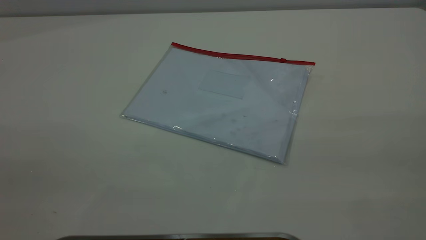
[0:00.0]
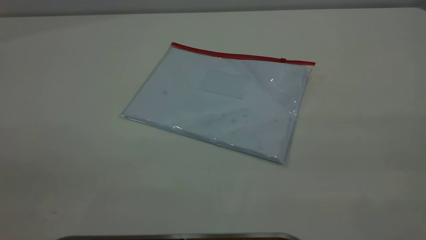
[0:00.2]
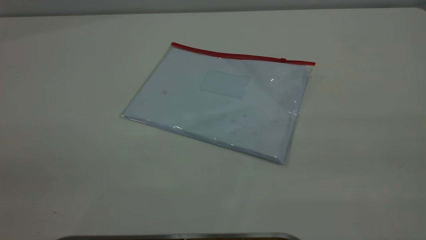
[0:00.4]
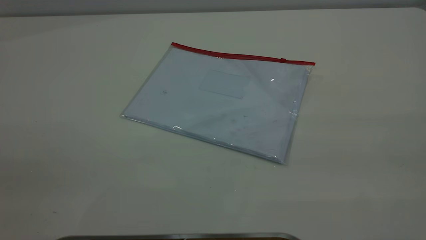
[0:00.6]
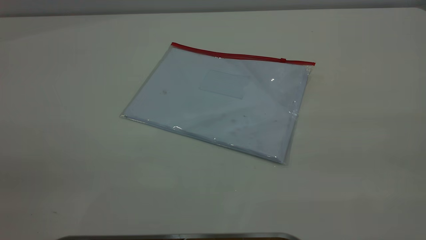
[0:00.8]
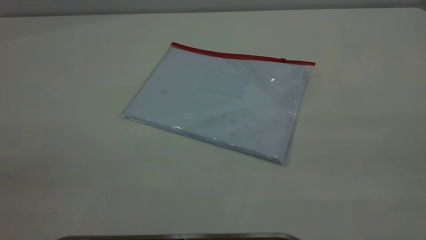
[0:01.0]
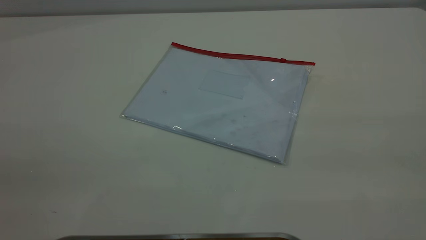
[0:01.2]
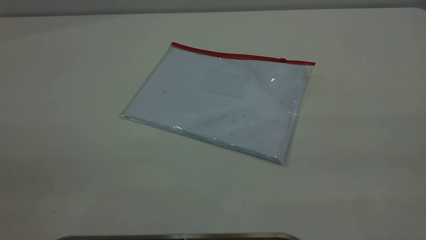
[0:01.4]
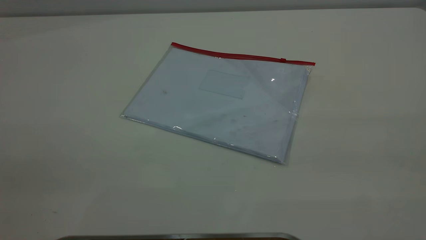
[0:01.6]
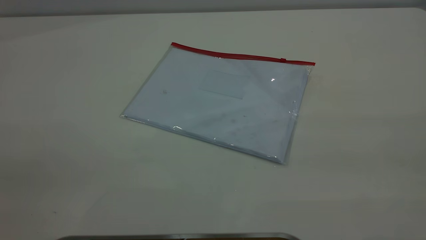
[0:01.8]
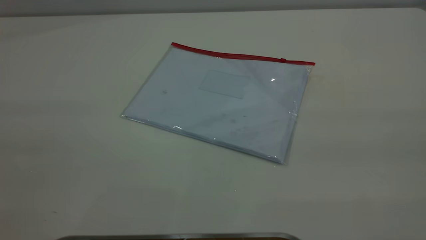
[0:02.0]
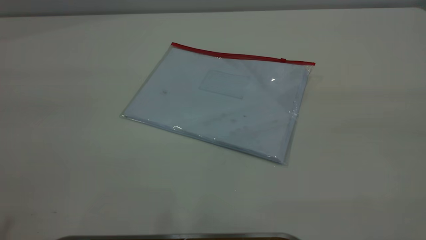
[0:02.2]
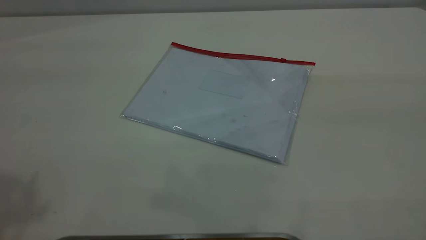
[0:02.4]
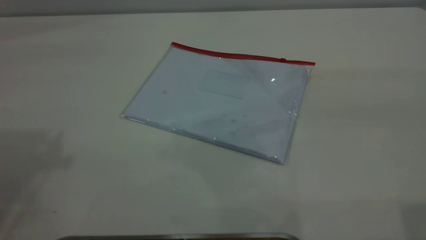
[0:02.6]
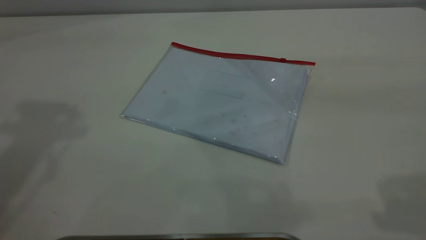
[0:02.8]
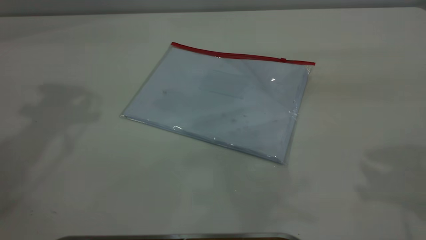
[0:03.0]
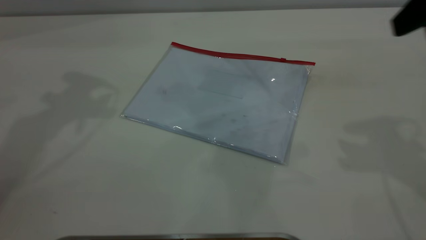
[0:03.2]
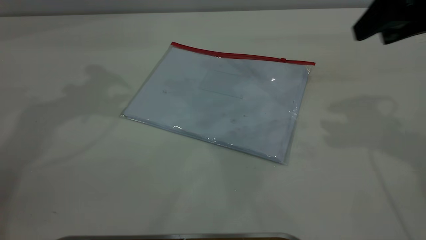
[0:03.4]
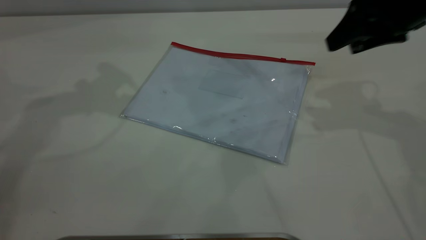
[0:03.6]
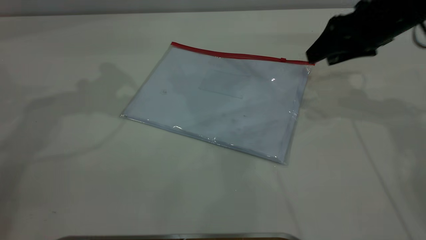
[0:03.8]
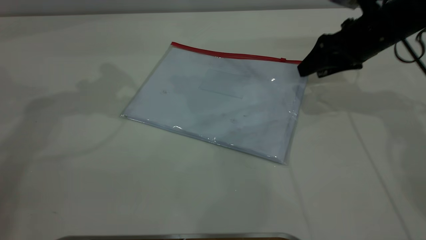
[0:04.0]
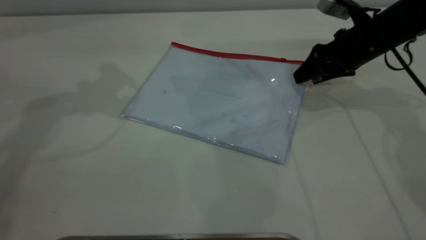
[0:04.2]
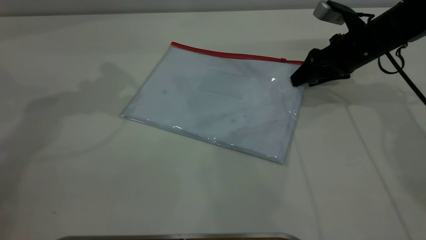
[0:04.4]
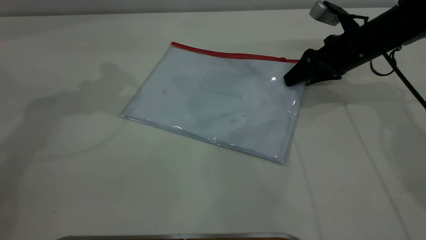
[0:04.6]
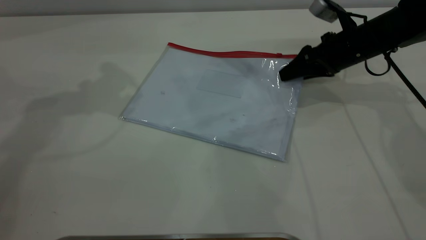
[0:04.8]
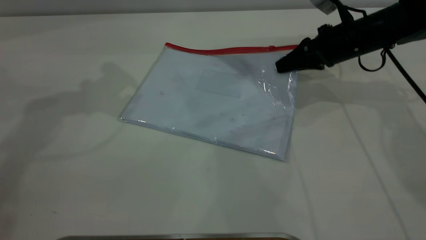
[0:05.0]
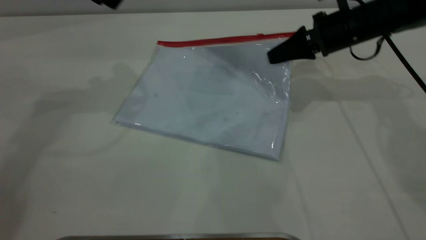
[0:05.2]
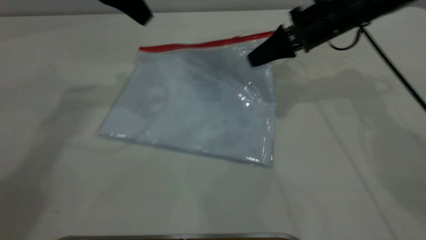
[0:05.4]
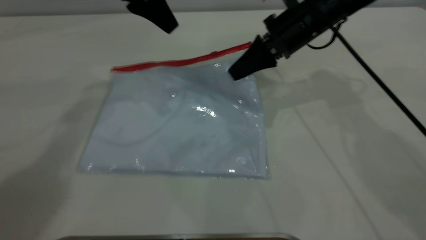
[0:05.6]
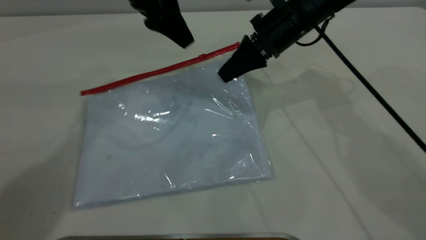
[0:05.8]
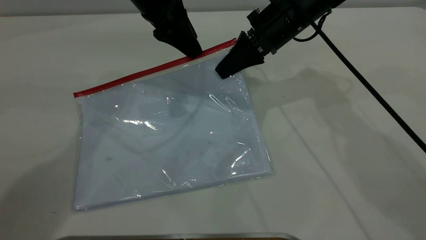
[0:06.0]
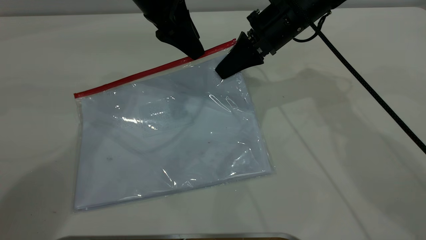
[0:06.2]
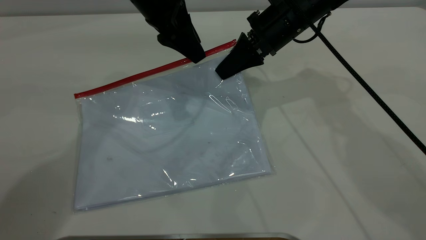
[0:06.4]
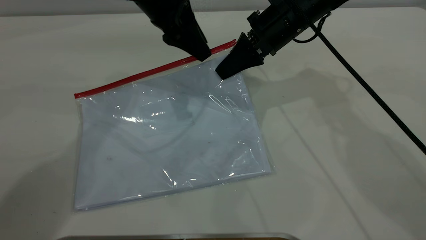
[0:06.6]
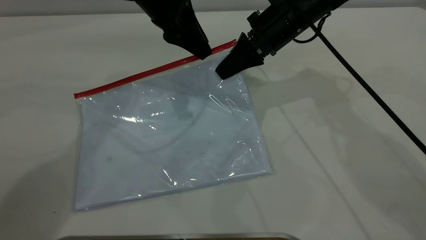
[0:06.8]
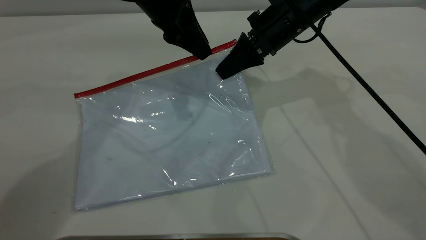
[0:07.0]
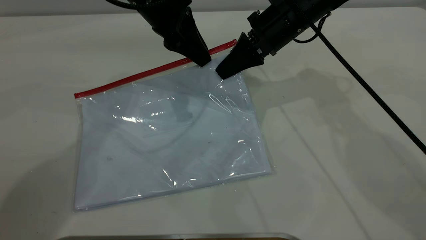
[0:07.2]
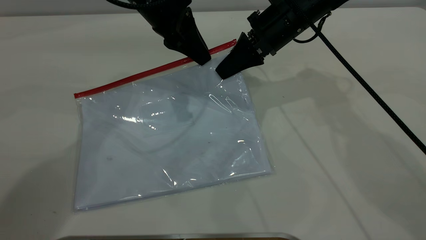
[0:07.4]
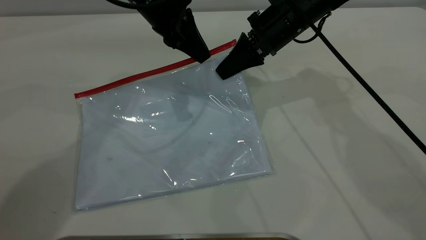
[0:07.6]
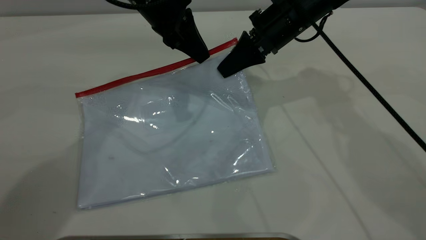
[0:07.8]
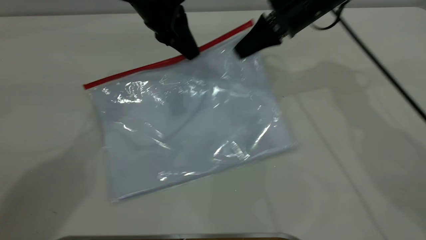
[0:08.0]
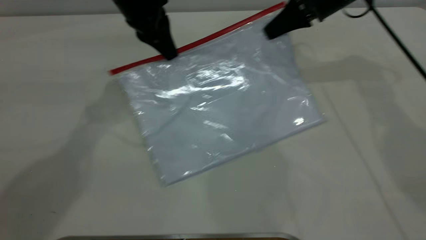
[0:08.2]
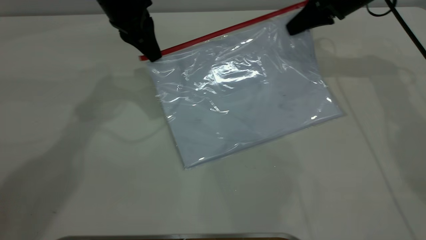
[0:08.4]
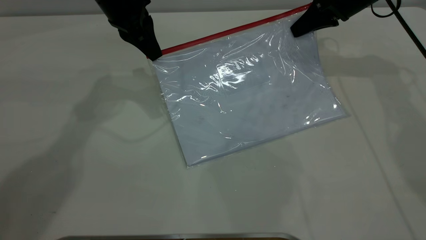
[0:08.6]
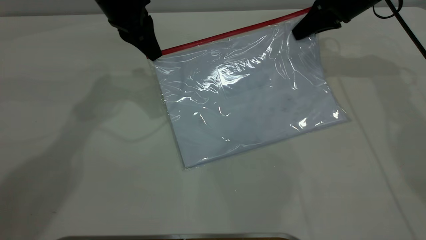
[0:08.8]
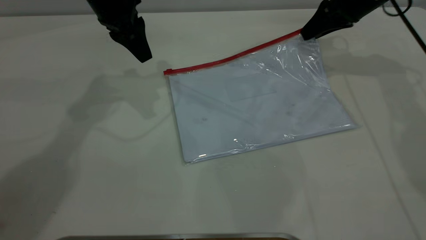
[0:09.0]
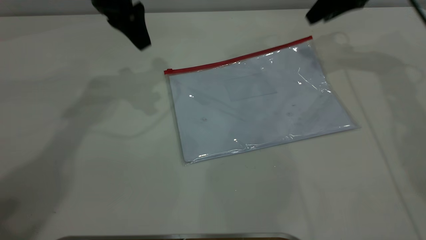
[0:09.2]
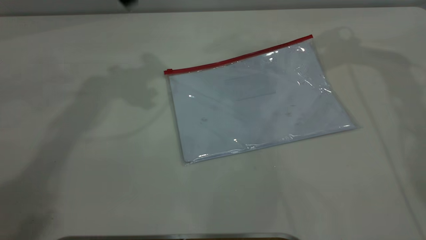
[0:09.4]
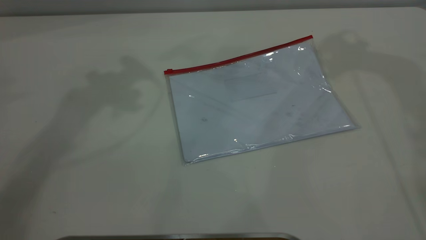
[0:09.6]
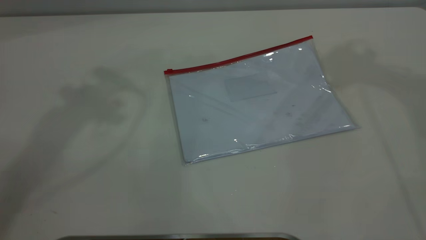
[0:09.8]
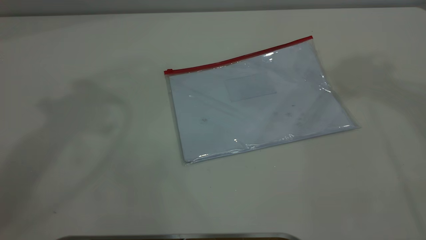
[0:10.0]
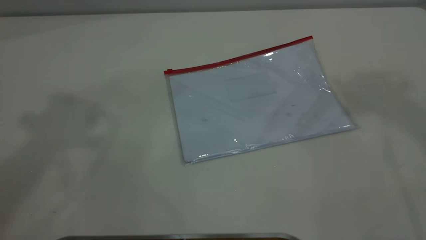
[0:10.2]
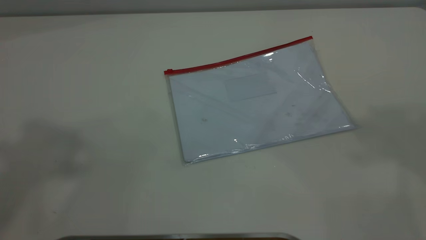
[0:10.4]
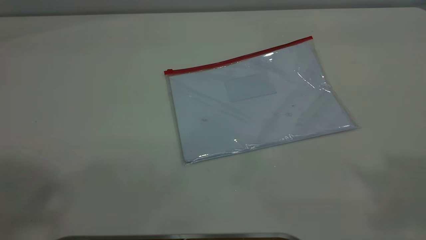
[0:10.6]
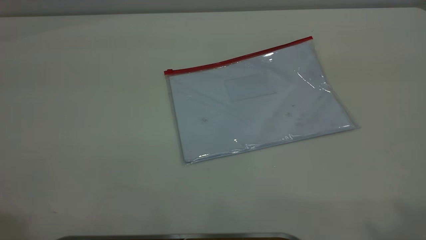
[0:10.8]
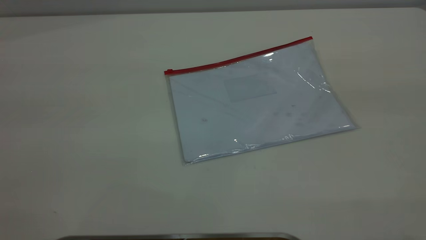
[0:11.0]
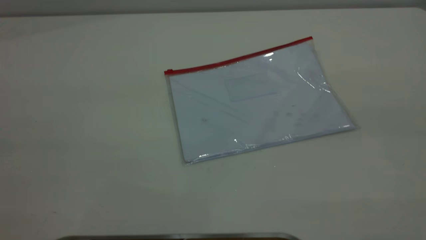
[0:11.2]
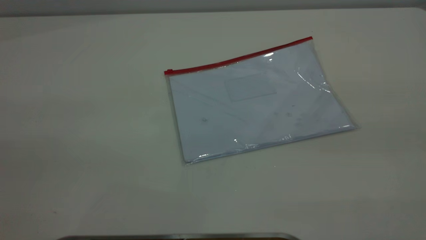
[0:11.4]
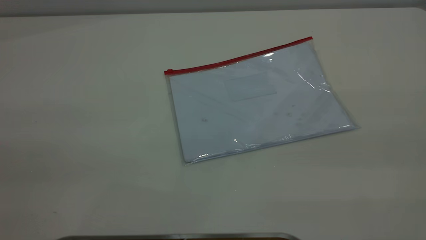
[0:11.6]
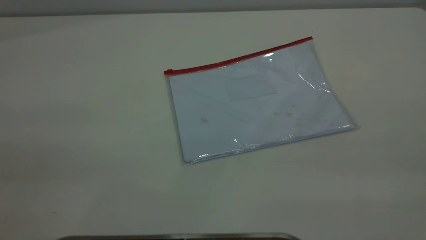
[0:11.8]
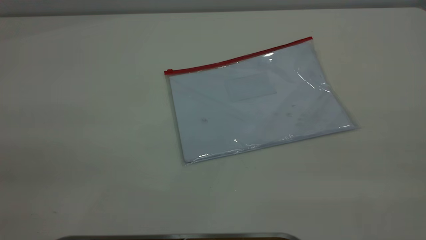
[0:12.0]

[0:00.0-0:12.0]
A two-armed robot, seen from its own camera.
Step, 0:00.0 to 0:05.0: Pick up the transparent plastic bag with the right gripper.
Step, 0:05.2 to 0:08.8: Pulling up the zipper on the transparent plastic bag with the left gripper to close it.
Step, 0:09.0 to 0:09.8: Place the transparent plastic bag.
0:00.0 to 0:01.6: The two grippers keep their place.
0:03.0 to 0:04.4: The right gripper travels downward and forward by about 30 cm.
0:04.4 to 0:06.0: The right gripper travels to the left and upward by approximately 15 cm, and closes up. Meanwhile the left gripper is displaced to the right and downward by approximately 15 cm.
0:06.0 to 0:07.6: The left gripper closes its fingers.
0:07.6 to 0:09.0: The right gripper moves to the right and forward, about 15 cm, and opens up. Meanwhile the left gripper goes some 5 cm to the left, and opens up.
0:09.0 to 0:10.4: Both grippers travel together upward and backward, roughly 50 cm.

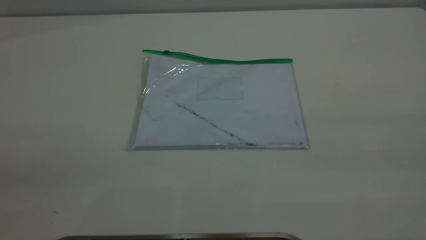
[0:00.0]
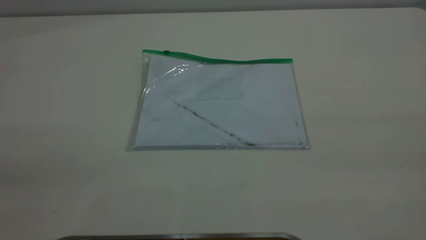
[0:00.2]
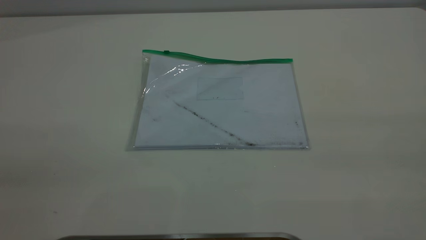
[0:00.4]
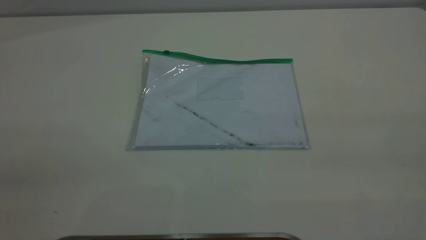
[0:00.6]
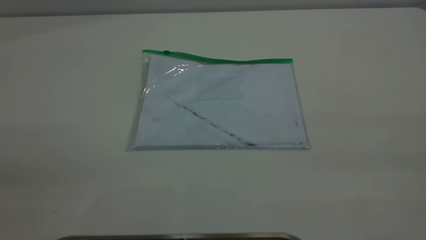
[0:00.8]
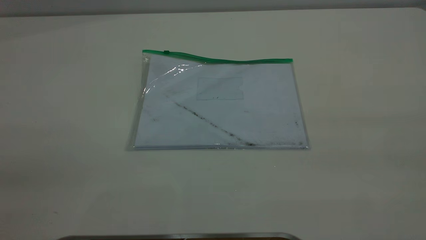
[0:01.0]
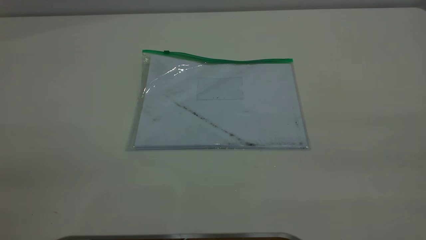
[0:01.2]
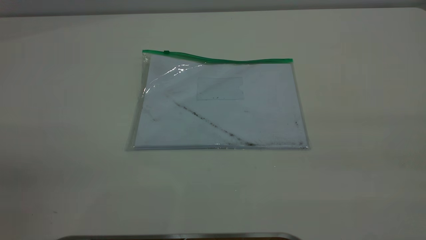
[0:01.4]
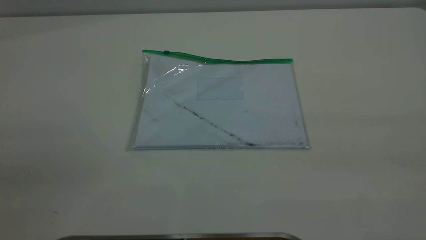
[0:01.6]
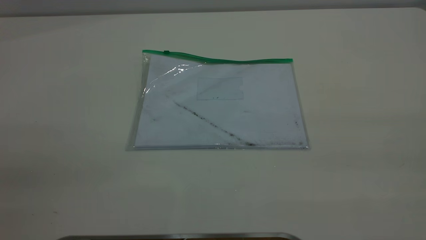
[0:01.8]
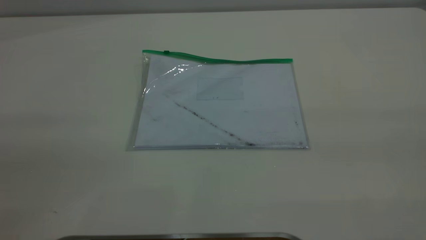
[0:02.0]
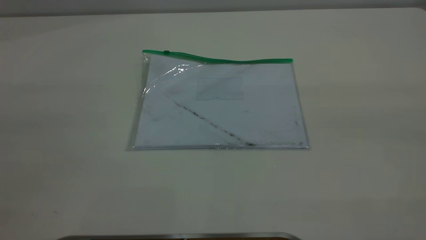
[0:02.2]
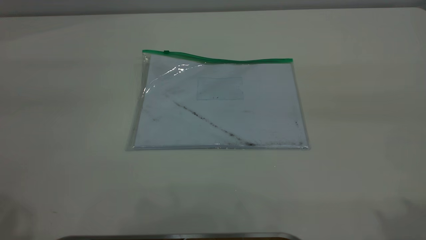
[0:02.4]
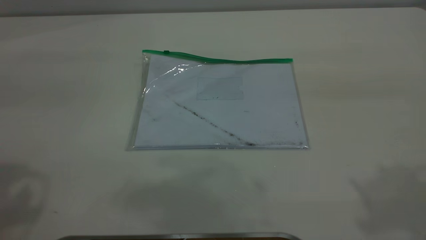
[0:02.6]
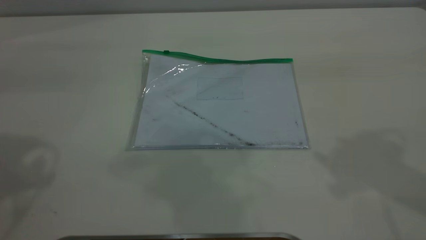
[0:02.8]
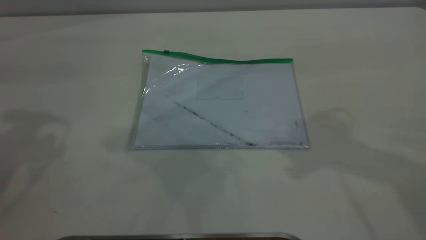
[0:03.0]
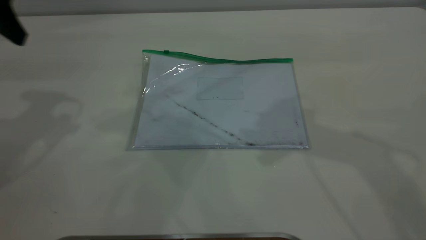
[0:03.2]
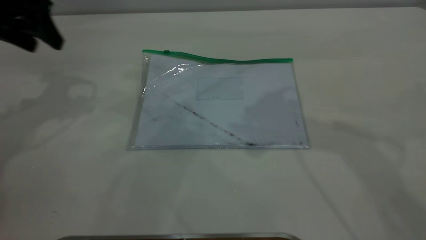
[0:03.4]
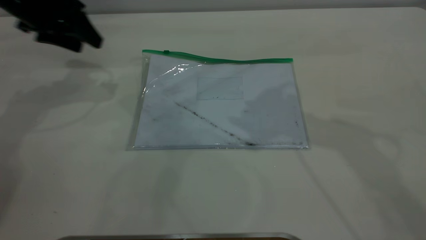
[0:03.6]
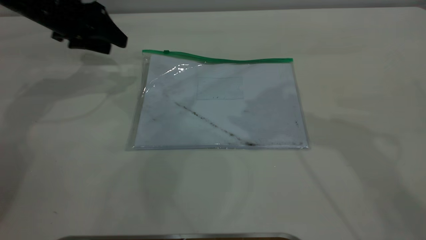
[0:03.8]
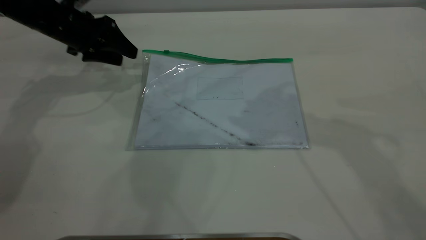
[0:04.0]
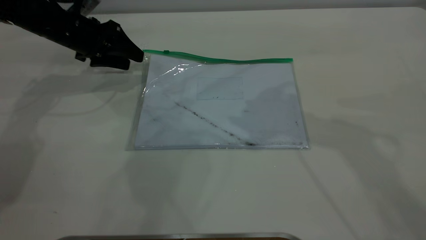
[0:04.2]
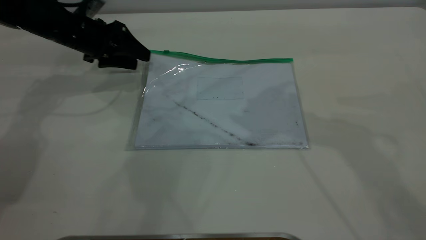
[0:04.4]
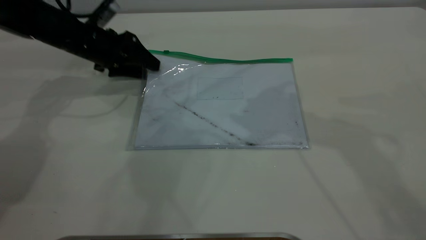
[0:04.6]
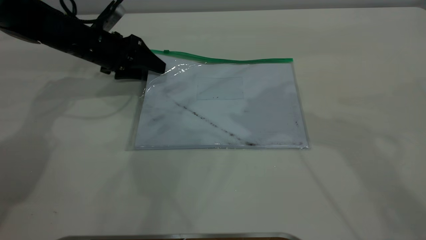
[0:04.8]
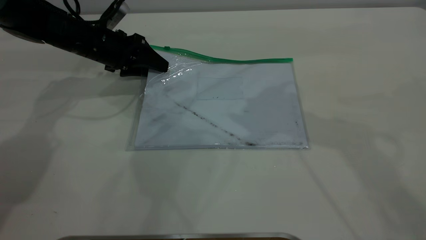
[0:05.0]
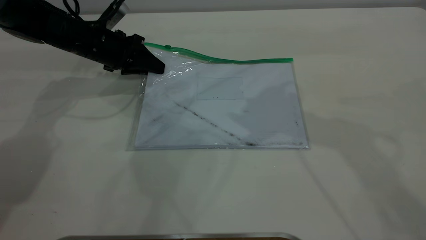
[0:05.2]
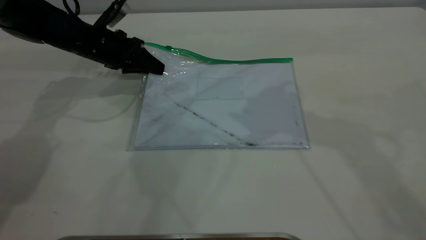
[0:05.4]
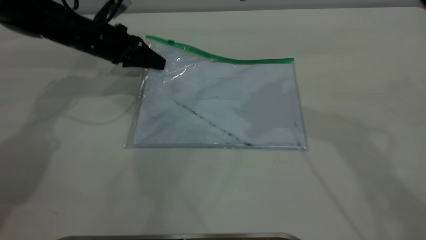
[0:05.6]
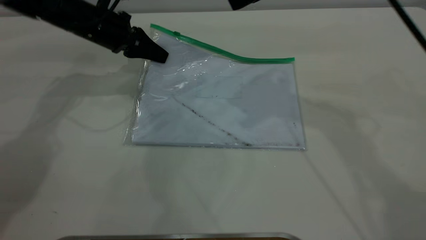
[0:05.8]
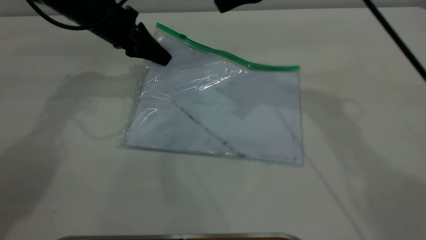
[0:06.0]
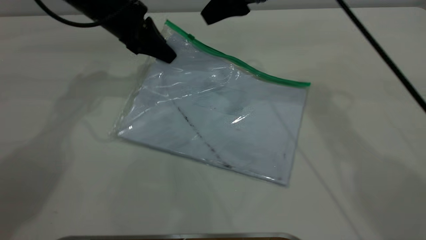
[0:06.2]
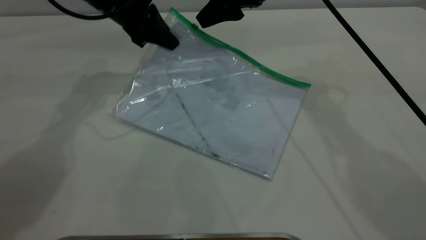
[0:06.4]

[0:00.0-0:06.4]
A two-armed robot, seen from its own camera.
Step, 0:00.0 to 0:05.8: Pick up the transparent plastic bag with the left gripper.
0:00.0 to 0:01.6: Both grippers stay put.
0:01.6 to 0:03.2: The left gripper goes approximately 35 cm forward.
0:03.2 to 0:04.8: The left gripper shifts approximately 25 cm downward, forward and to the right.
0:04.8 to 0:06.4: The left gripper travels upward and to the right by some 10 cm, and closes up; the right gripper moves forward and downward, approximately 15 cm.
